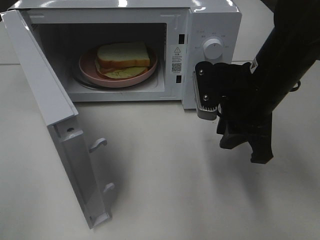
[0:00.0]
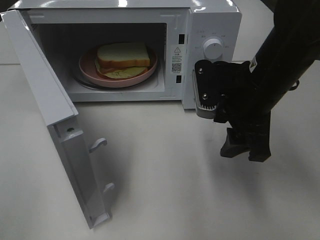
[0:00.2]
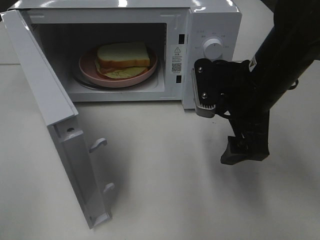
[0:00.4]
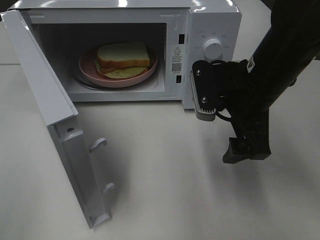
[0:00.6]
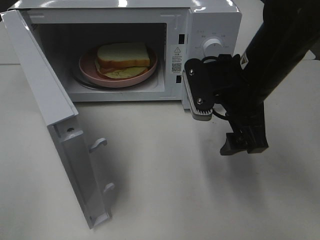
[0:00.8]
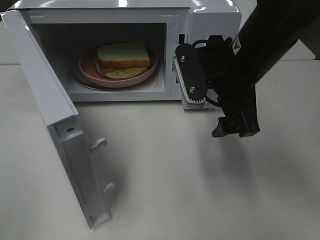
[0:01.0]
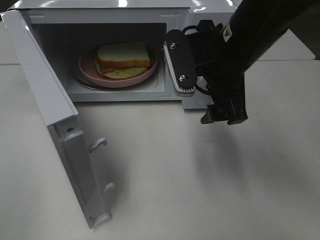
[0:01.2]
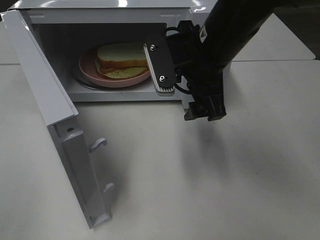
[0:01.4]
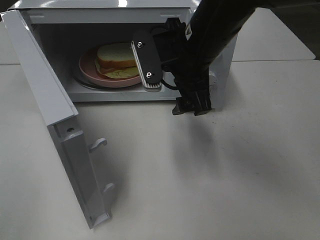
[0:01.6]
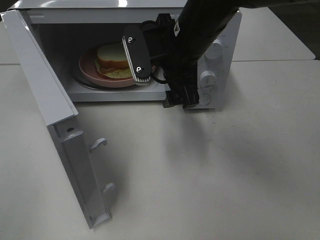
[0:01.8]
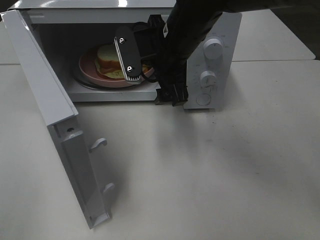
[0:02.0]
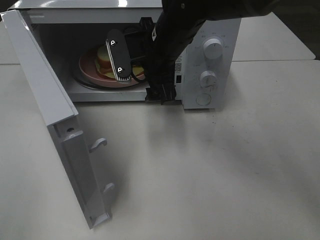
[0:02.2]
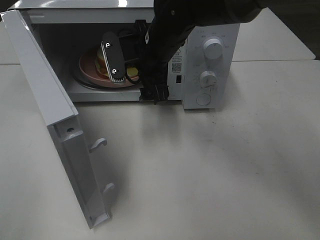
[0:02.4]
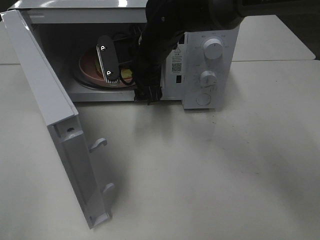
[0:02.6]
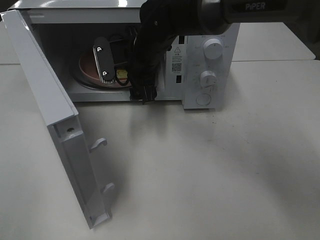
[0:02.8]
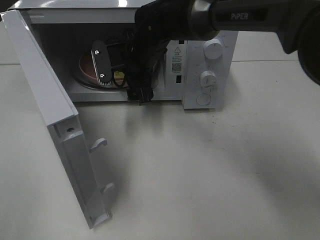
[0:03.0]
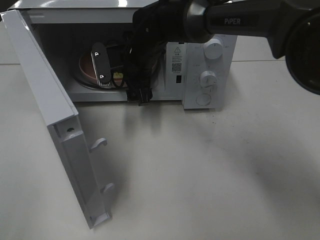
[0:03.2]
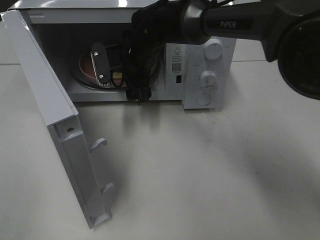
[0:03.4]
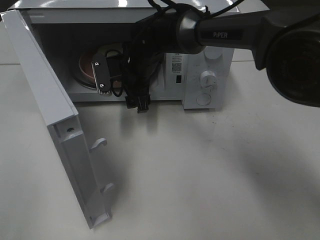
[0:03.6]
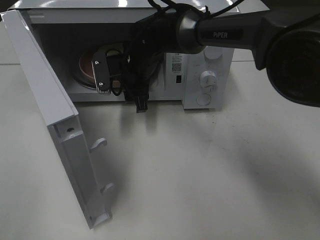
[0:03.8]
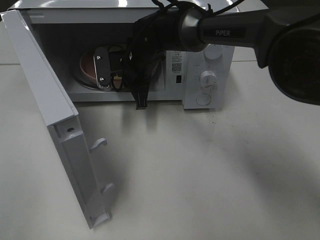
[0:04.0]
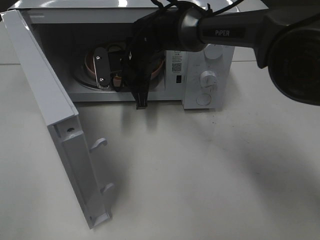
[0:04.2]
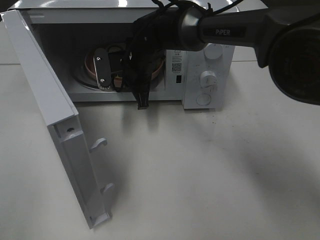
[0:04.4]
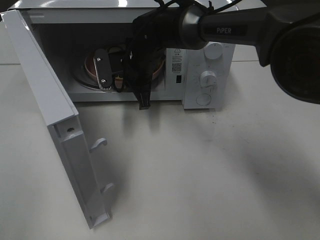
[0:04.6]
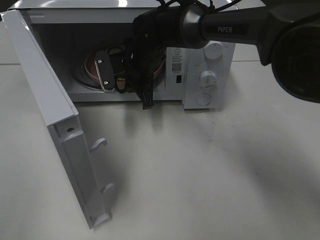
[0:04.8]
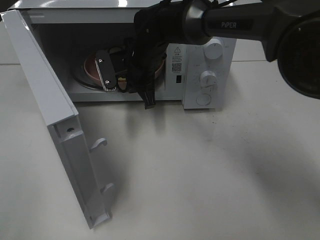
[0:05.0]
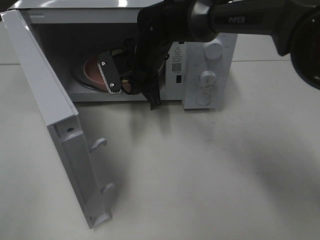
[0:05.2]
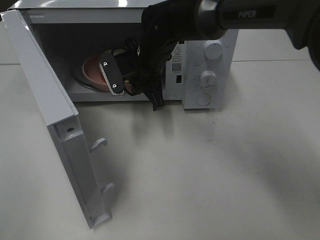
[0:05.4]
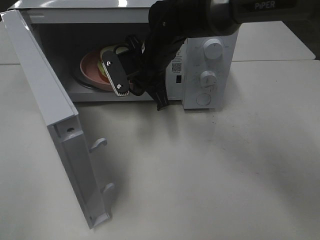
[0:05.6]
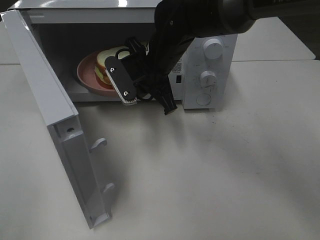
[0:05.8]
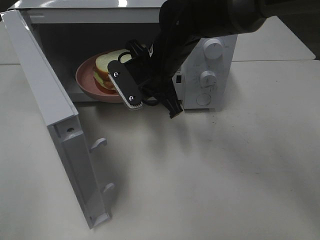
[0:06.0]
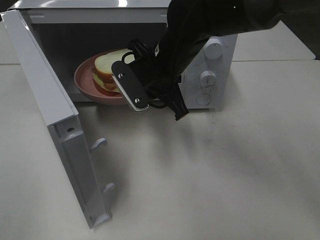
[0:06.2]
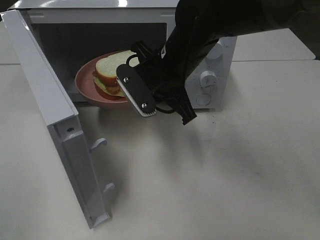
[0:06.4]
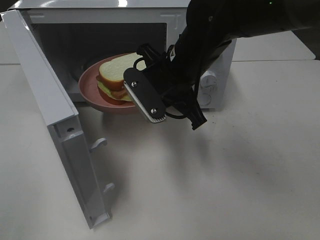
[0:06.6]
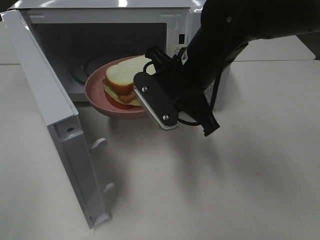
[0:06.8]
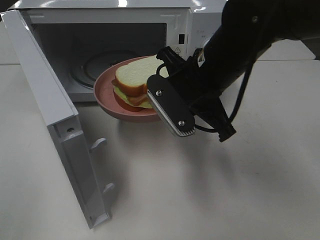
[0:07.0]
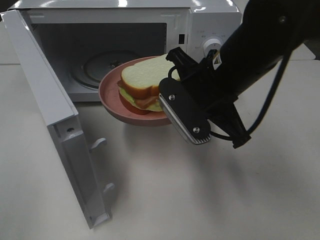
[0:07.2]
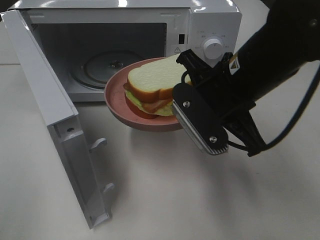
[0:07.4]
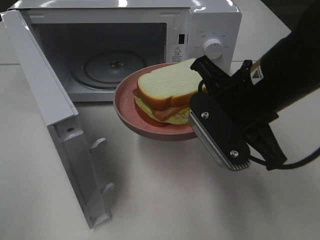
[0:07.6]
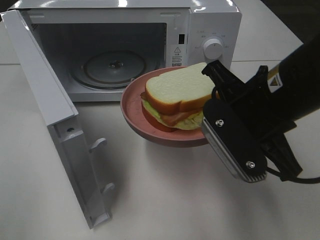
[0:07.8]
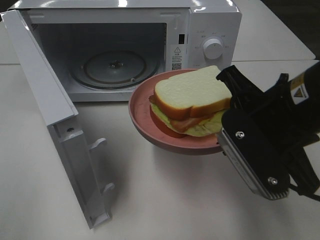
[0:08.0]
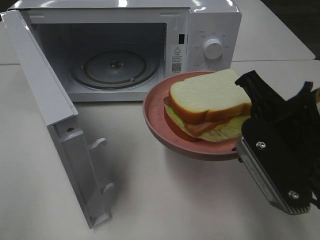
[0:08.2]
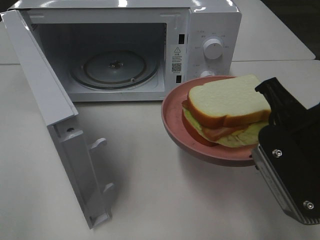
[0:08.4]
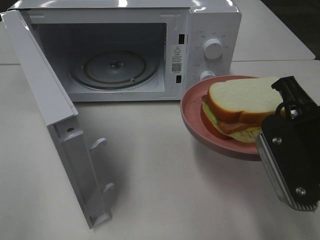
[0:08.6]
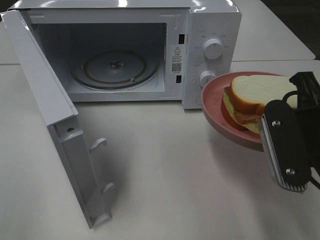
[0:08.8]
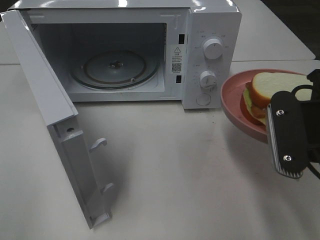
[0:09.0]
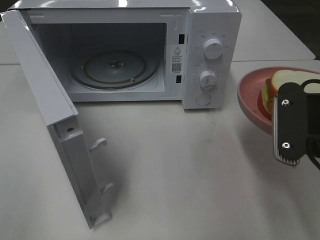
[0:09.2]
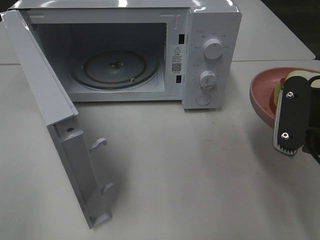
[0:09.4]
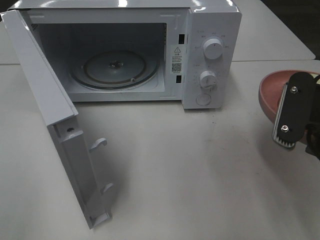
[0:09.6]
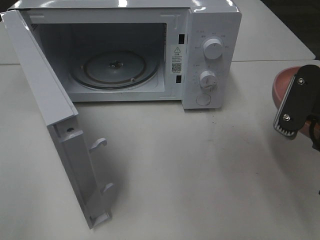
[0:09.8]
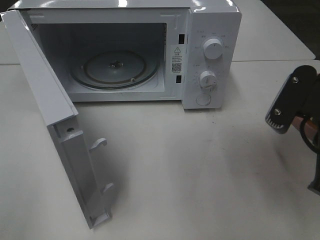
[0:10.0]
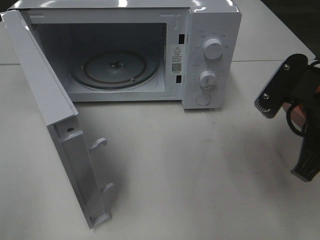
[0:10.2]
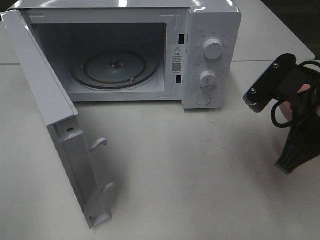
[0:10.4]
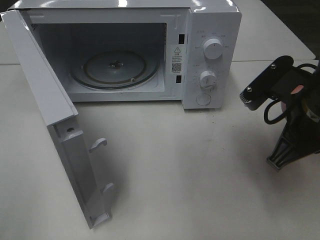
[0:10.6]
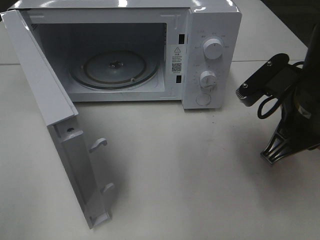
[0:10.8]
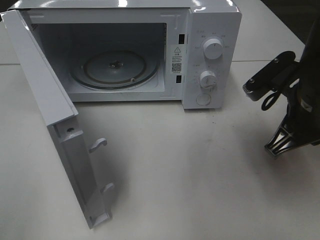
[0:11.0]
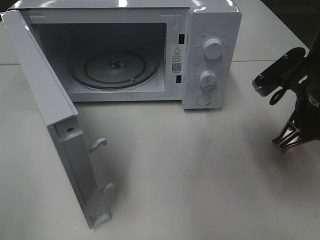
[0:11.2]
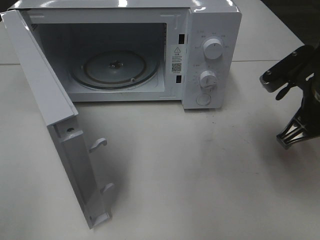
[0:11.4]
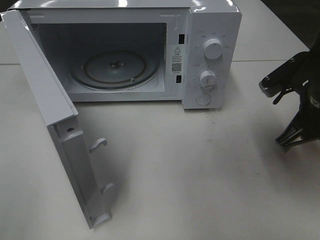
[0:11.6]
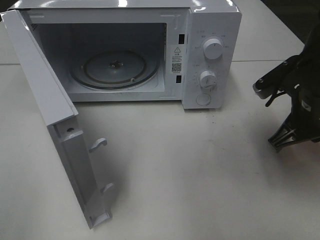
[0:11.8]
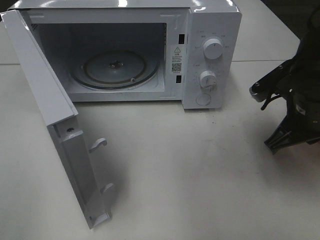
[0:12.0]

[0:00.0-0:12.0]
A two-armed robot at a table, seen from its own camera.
Task of the whole recording: Heat Sandwich.
Step, 0:00.0 to 0:04.8: Right hand: grab the plate with the sandwich.
0:00.0 to 0:01.6: The right gripper is displaced to the left by some 10 cm, and opens its fingers.
0:01.6 to 0:03.0: The right gripper moves forward, to the left and downward, some 15 cm.
0:03.0 to 0:04.4: The right gripper closes.
0:04.4 to 0:06.0: The right gripper is displaced backward by some 5 cm.
0:06.0 to 0:07.6: The right gripper moves backward and to the right, approximately 20 cm.
0:07.6 to 0:09.0: The right gripper travels to the right and backward by some 10 cm.
0:10.4 to 0:12.0: The right gripper is displaced forward by about 5 cm.

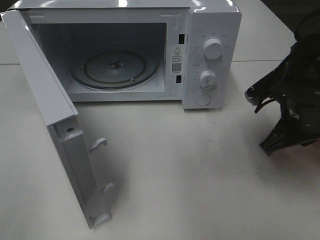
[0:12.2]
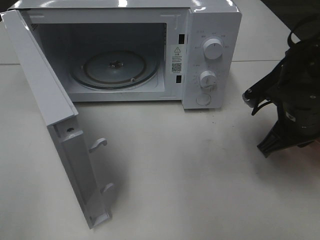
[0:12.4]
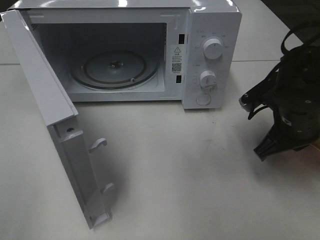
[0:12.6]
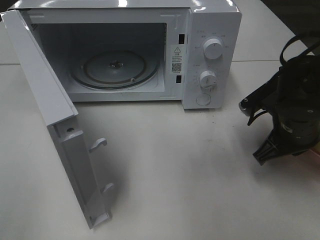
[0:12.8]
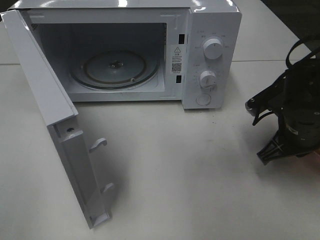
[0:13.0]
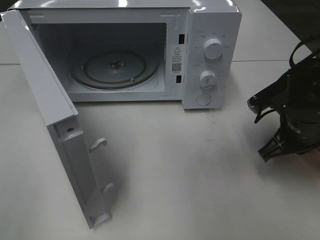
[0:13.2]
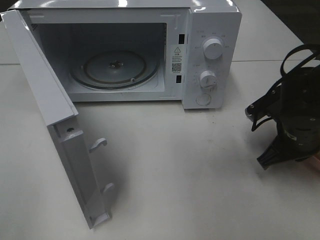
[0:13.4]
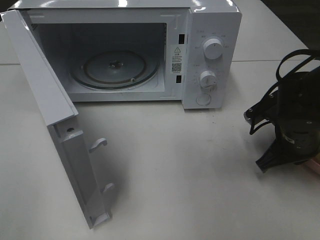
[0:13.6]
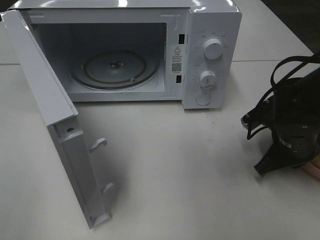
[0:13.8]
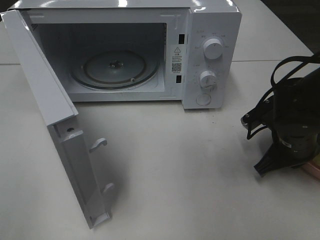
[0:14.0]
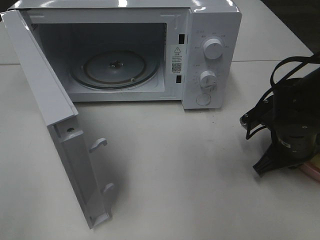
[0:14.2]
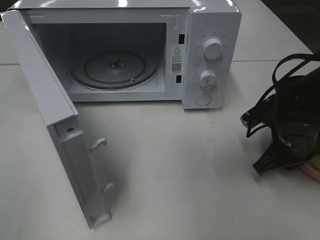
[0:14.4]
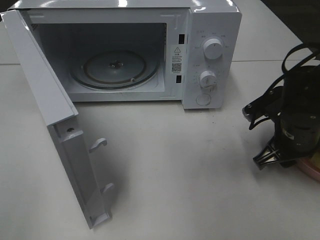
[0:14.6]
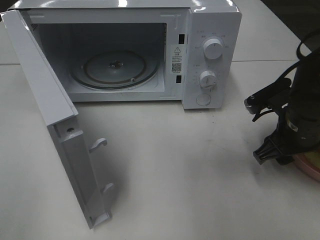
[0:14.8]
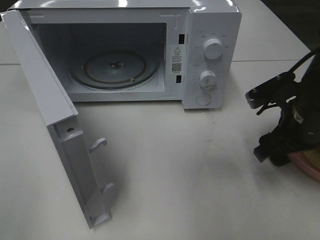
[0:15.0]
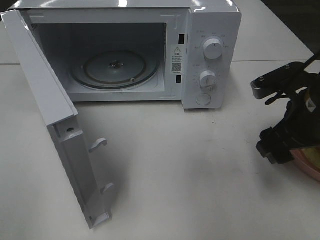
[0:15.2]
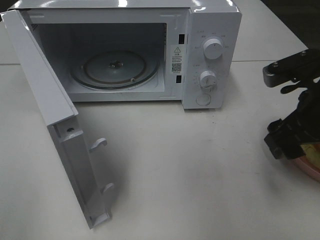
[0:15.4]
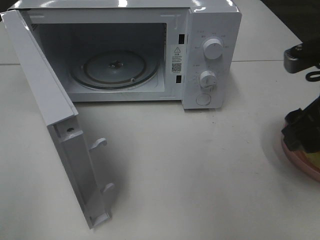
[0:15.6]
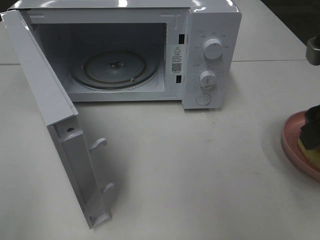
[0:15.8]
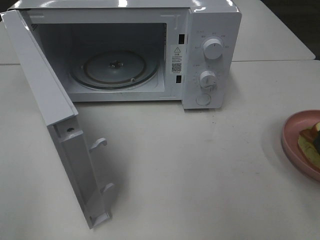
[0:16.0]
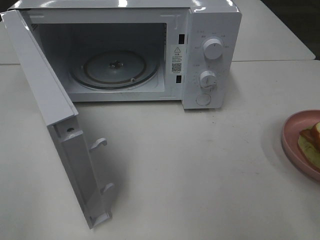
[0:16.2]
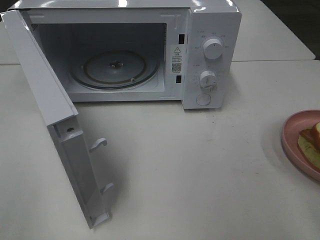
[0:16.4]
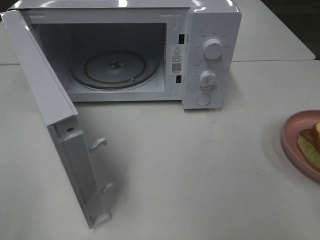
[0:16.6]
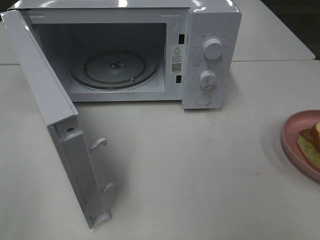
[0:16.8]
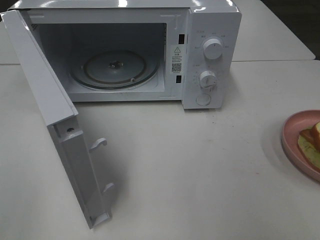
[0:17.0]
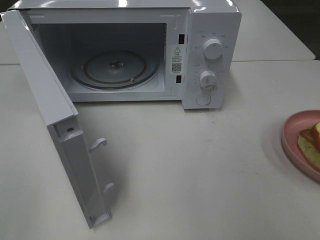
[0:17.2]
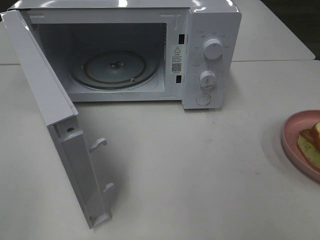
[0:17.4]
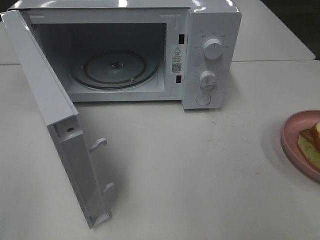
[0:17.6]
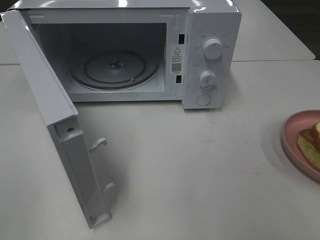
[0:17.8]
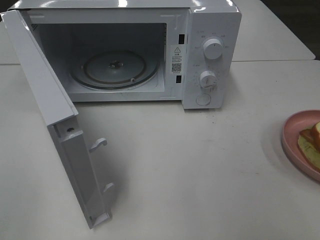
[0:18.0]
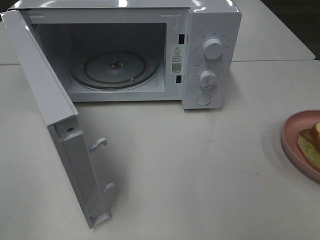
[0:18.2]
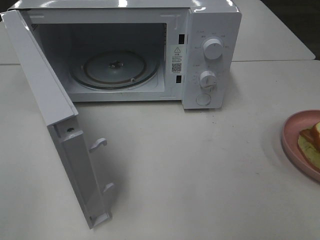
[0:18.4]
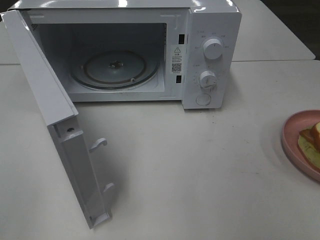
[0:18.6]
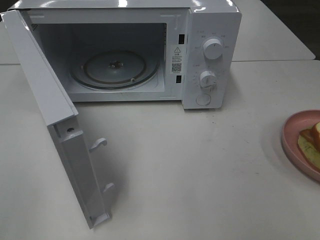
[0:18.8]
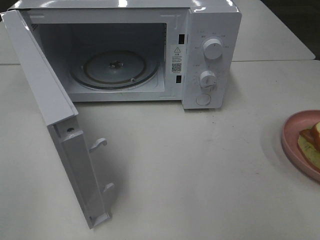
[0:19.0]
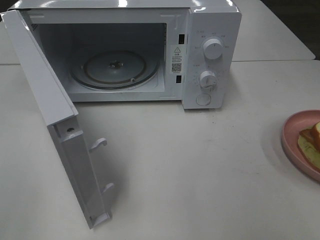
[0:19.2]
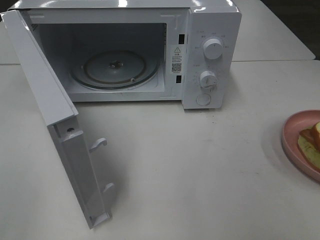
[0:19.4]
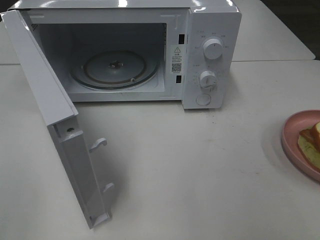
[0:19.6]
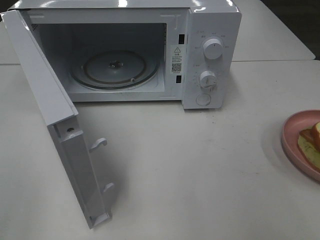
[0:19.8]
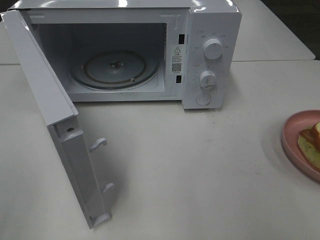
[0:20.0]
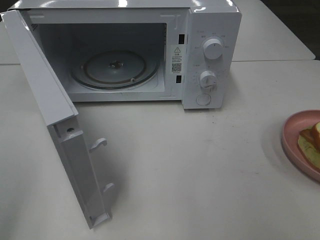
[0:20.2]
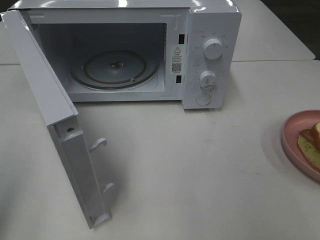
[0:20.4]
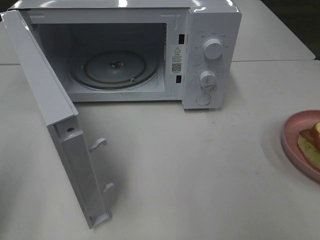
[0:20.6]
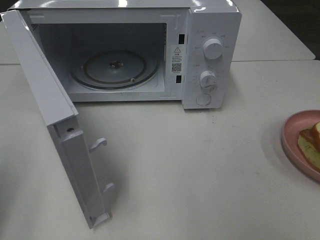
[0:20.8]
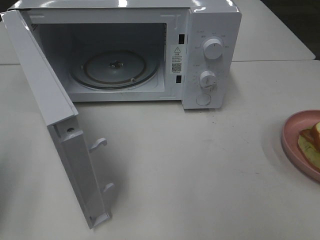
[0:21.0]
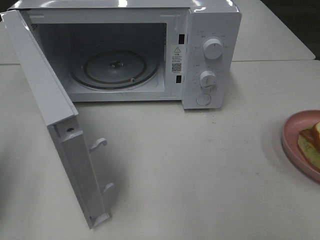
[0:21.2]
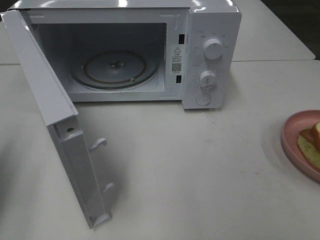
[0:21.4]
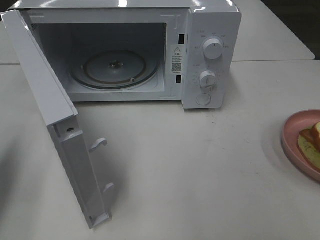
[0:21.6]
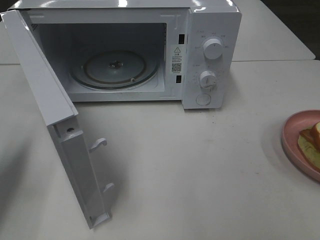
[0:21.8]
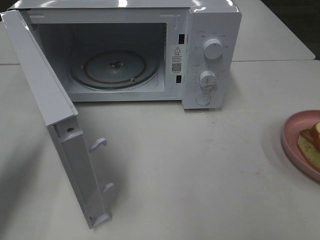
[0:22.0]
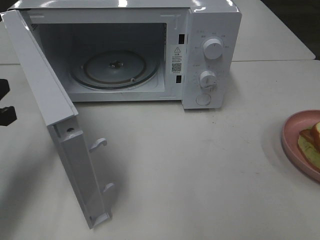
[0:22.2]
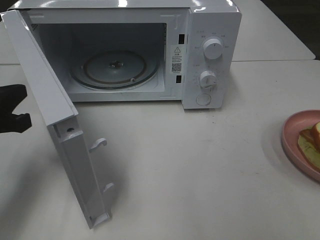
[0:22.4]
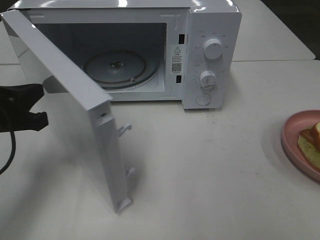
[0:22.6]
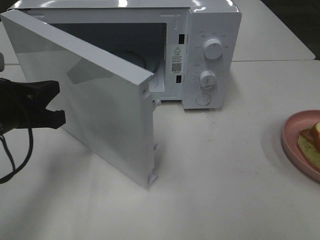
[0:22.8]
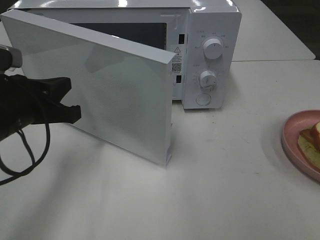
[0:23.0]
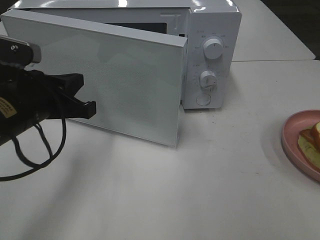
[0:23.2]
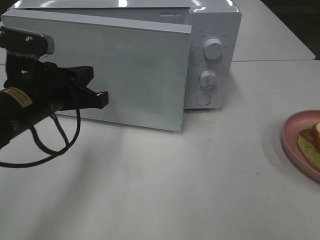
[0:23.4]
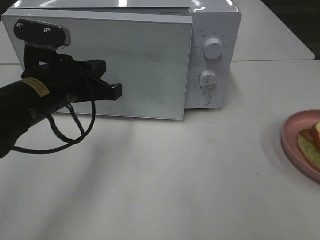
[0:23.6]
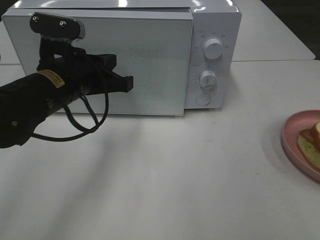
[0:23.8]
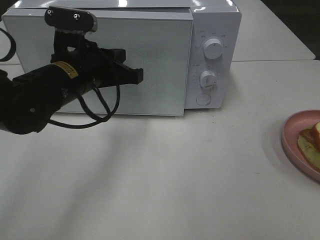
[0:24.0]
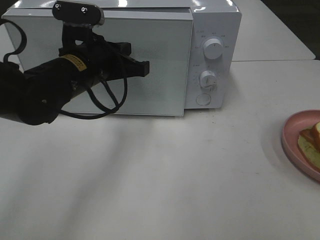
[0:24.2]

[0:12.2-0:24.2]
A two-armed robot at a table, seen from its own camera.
Task of the whole recording: Heat Sandwich.
Step, 0:12.2 to 0:15.2: Right hand: place the plate on the table.
0:12.2 to 0:13.8: The right gripper travels downward by about 5 cm.
0:13.8 to 0:15.2: The right gripper shifts about 10 cm upward, and opens.
0:15.2 to 0:16.6: The right gripper is displaced backward and upward by some 20 cm.
0:19.8 to 0:21.2: The left gripper shifts approximately 15 cm forward and downward, and closes its fingers.
0:21.2 to 0:22.6: The left gripper is displaced to the right, forward and downward by some 15 cm.
0:22.6 to 0:24.2: The left gripper heads to the right and forward, covering about 15 cm.
